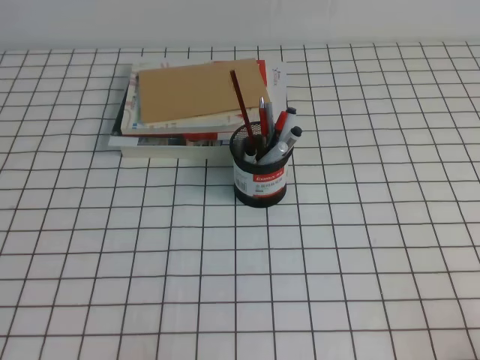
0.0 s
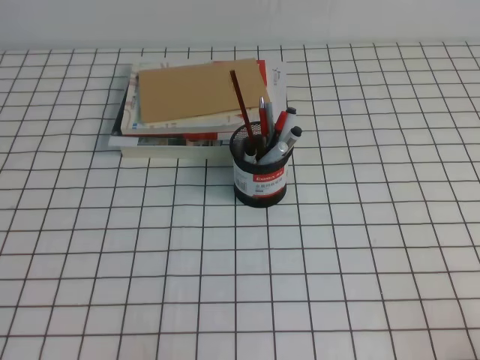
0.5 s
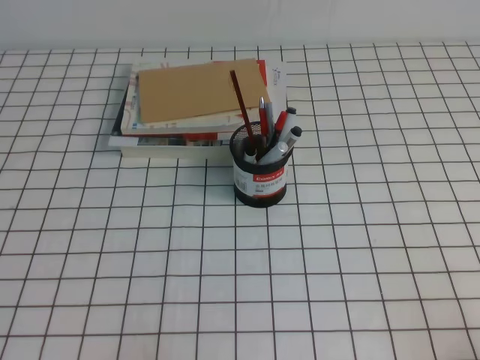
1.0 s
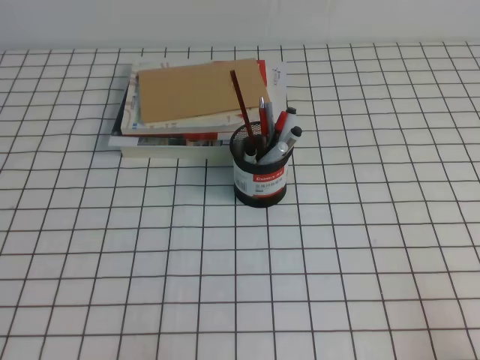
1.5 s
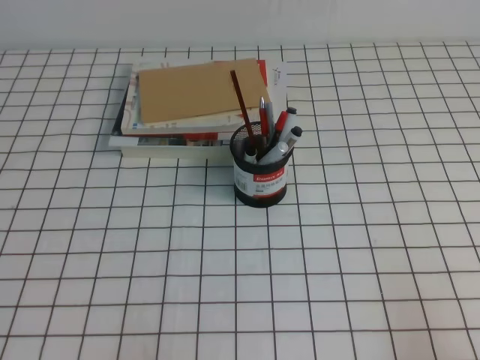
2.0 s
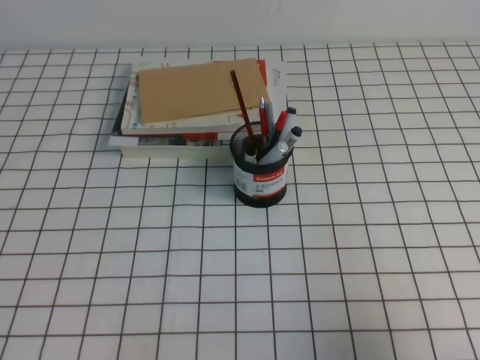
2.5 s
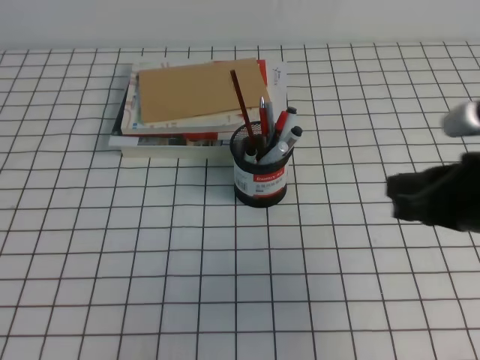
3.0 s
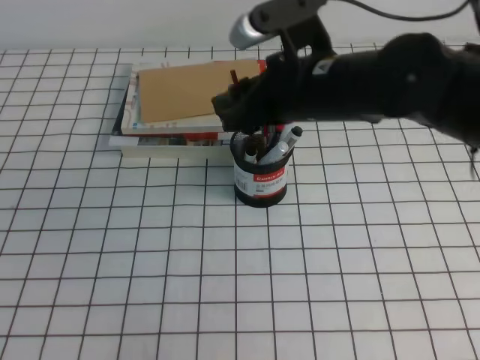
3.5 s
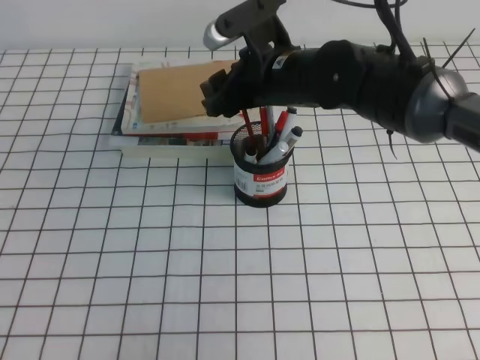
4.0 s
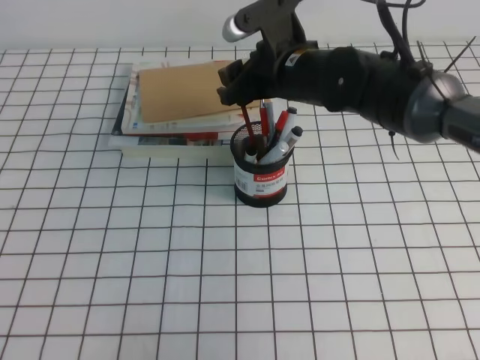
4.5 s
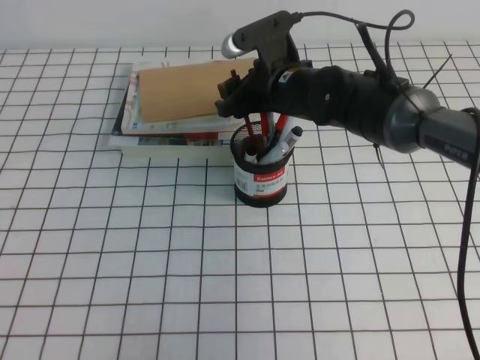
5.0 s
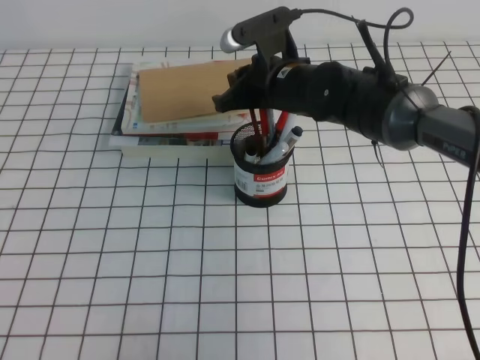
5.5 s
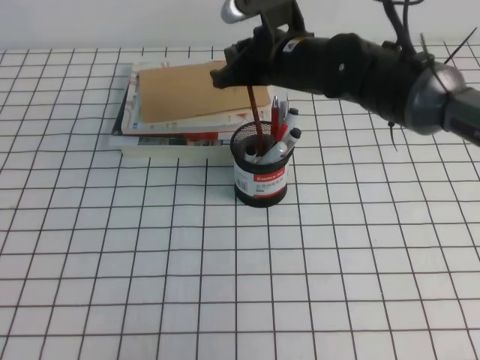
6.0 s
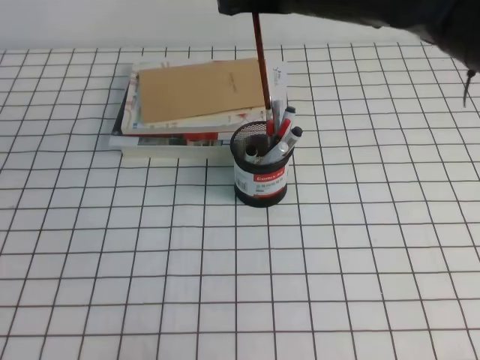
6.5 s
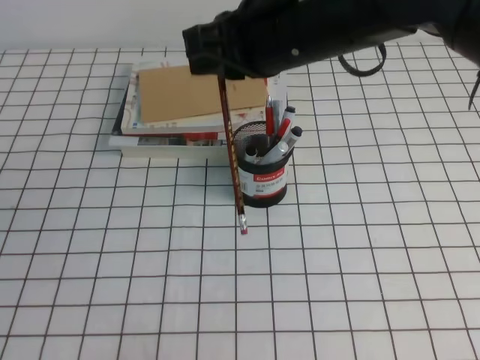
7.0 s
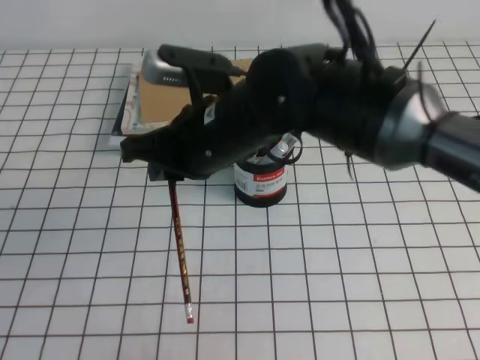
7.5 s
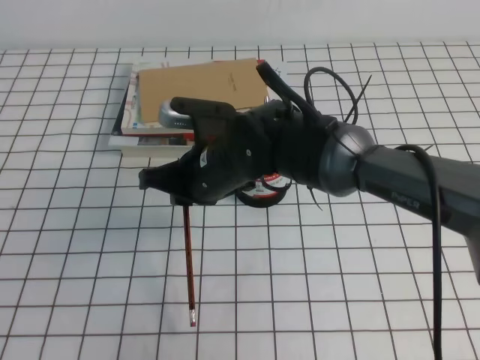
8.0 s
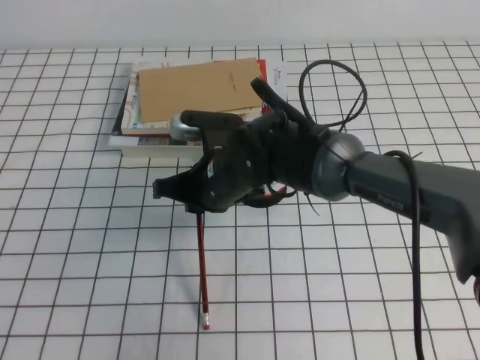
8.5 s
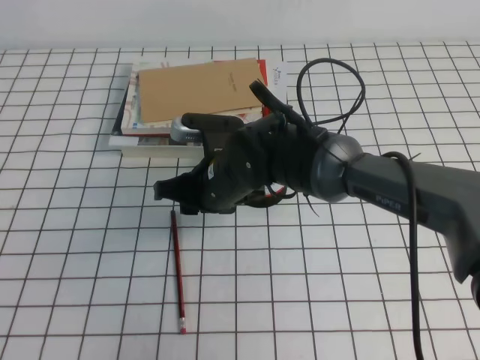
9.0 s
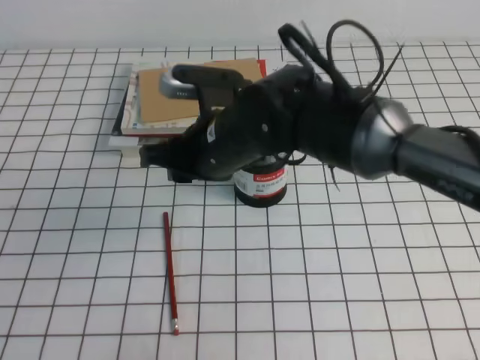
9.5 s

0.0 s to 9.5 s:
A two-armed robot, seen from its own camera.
2.0 to 4.0 s: The right gripper heads forward and to the left, covering some 40 cm, and opens.
4.0 to 5.5 s: The right gripper moves approximately 5 cm, and closes its fingers.
5.5 to 7.5 s: The right gripper heads backward, upward and to the left, covering about 15 cm.
7.5 to 9.5 s: The right gripper opens up.

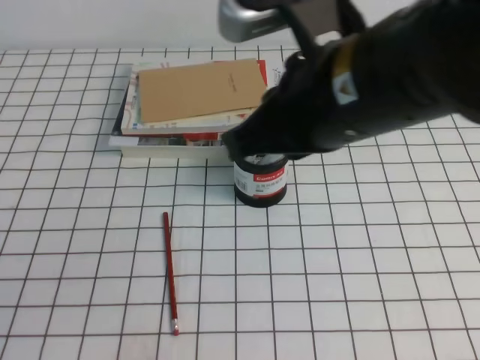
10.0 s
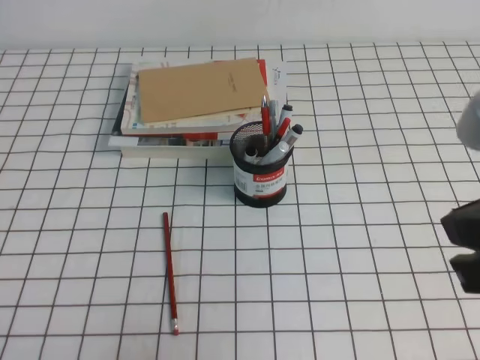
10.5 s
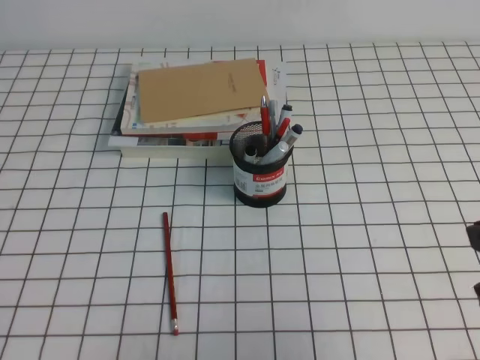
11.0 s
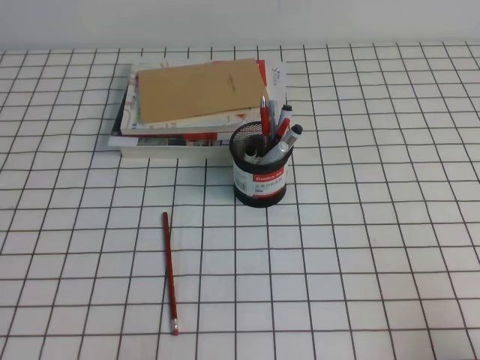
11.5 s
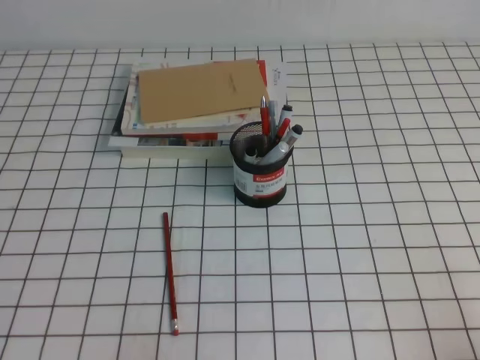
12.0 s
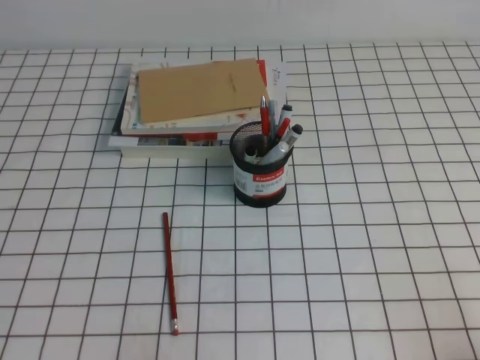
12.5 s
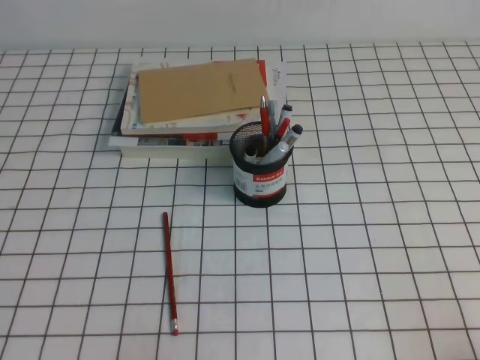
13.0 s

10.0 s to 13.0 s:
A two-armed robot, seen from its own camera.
Step, 10.0 to 13.0 s: Pick up the pen from the pen holder.
10.0 to 11.5 s: The right gripper shifts some 35 cm to the right, downward and backward.
